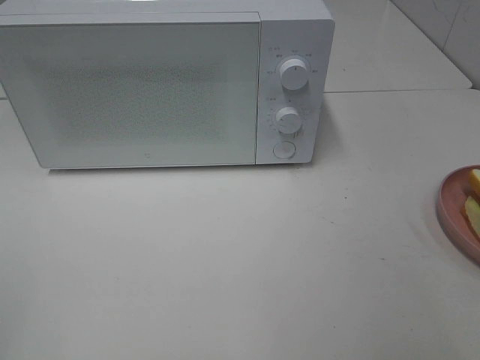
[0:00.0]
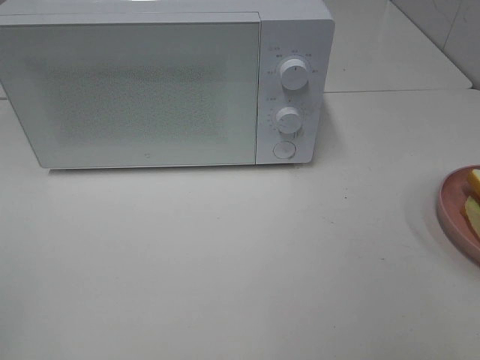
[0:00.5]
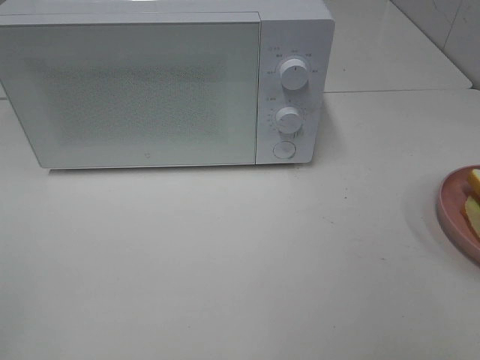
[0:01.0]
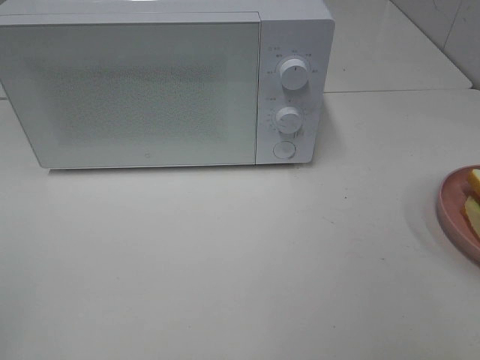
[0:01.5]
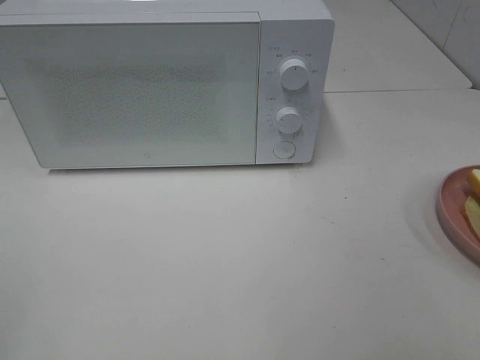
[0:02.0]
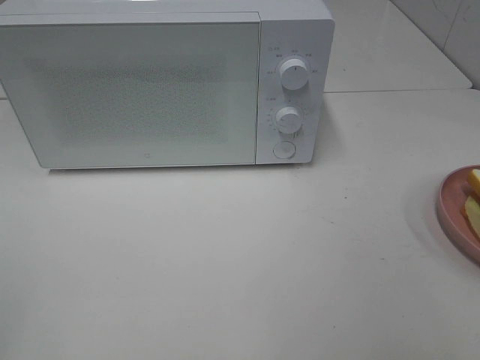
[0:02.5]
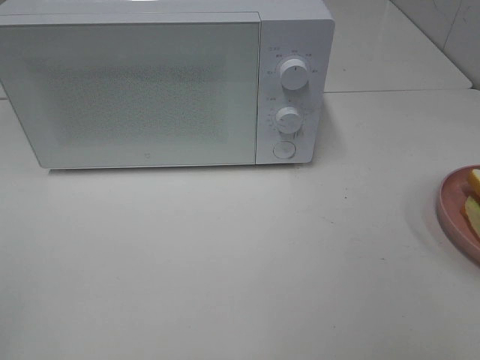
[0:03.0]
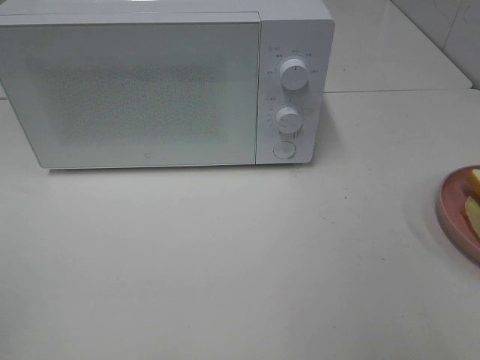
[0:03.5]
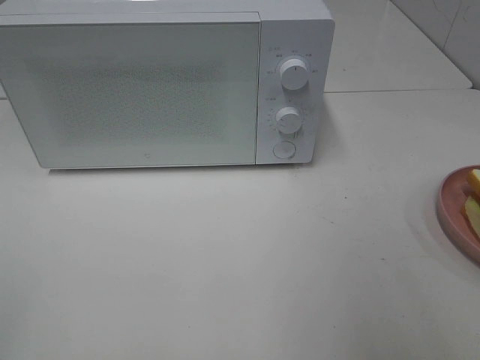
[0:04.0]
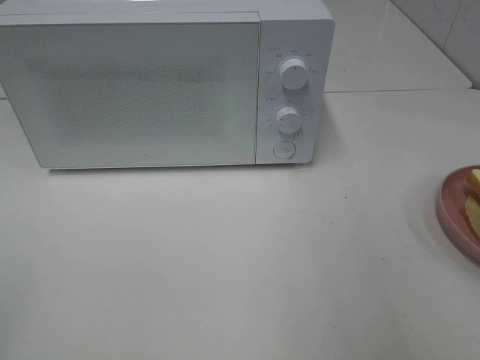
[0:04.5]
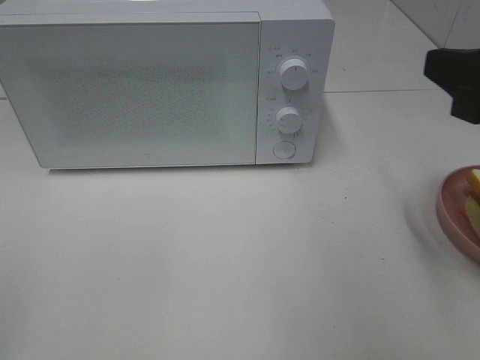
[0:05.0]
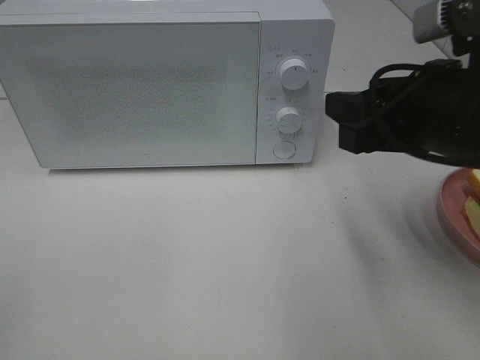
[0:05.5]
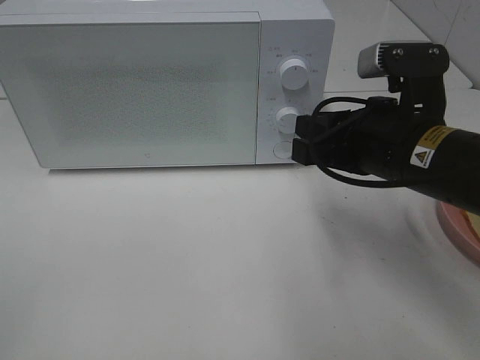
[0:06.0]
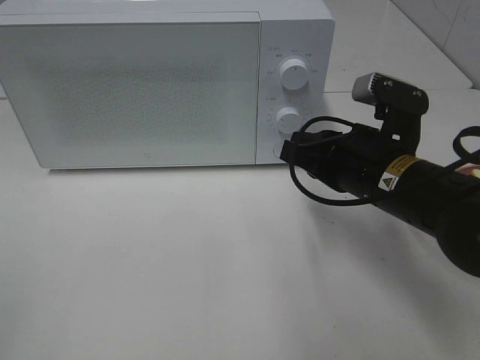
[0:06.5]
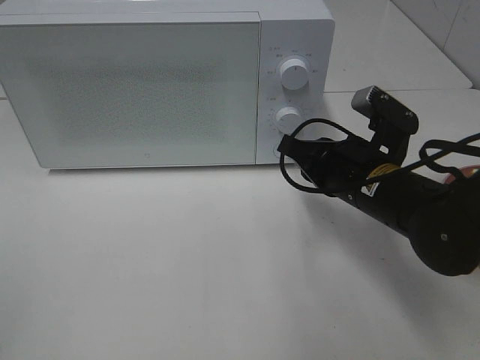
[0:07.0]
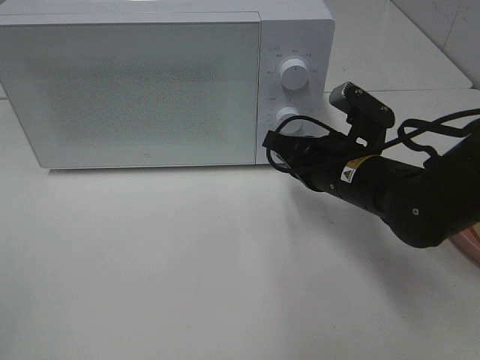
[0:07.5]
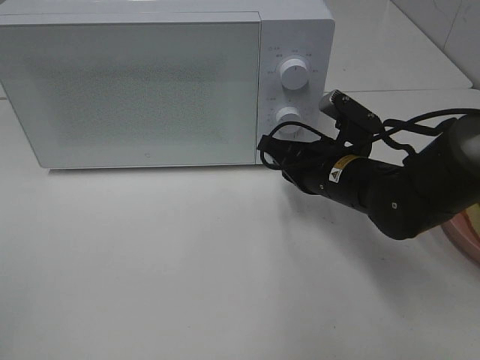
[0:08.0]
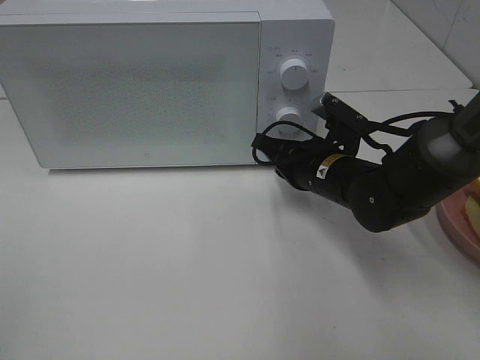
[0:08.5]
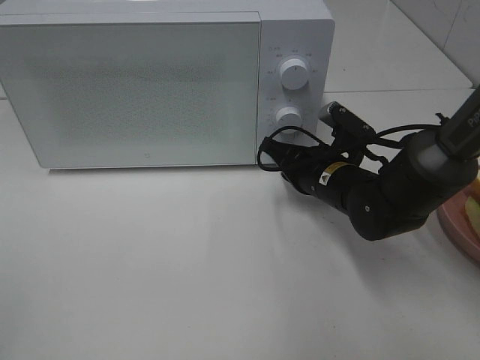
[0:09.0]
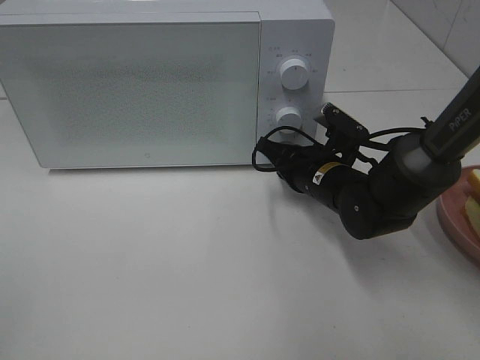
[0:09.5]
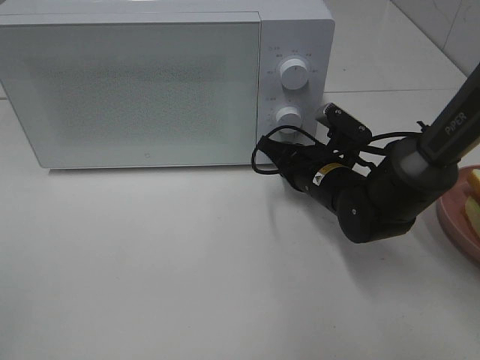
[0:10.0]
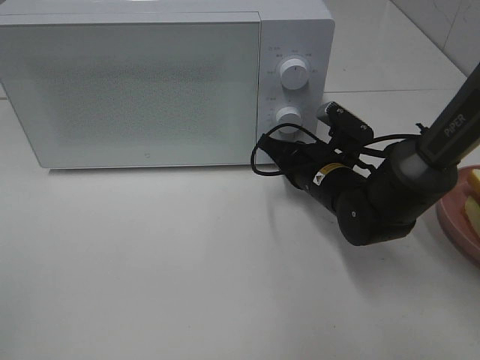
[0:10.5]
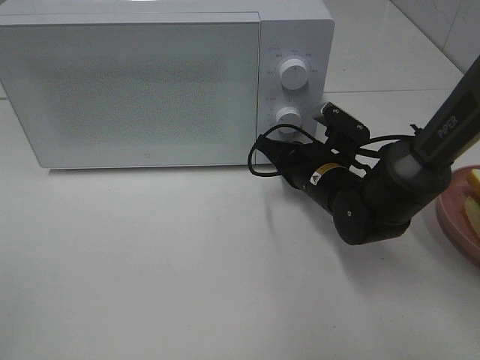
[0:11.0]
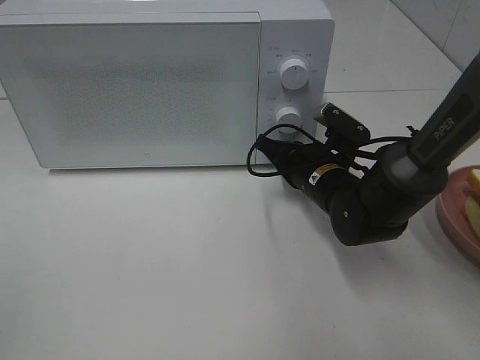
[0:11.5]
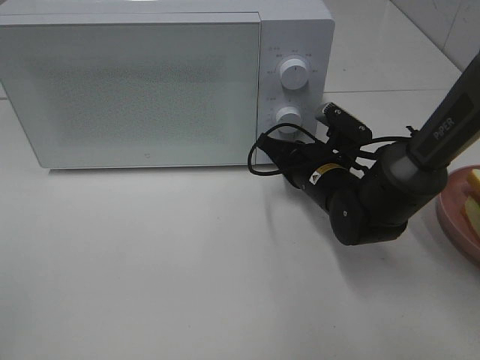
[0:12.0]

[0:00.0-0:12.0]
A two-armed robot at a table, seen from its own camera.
Task of the whole recording: Heat Sandwich.
0.0 to 2.0 s: Both grippers stay about where they are.
4.0 to 6.0 s: The right gripper travels forward, to the left and downward by some 25 cm, and closes its fingers.
6.0 to 8.0 s: The right gripper is displaced downward and forward by about 10 cm, and closes its fingers.
8.0 to 10.0 s: The right gripper shifts by roughly 5 cm.
10.0 to 12.0 s: Both grippers stay about where they are.

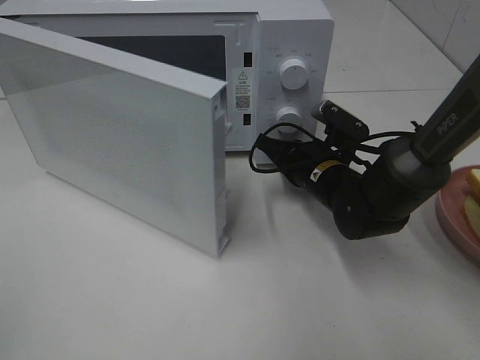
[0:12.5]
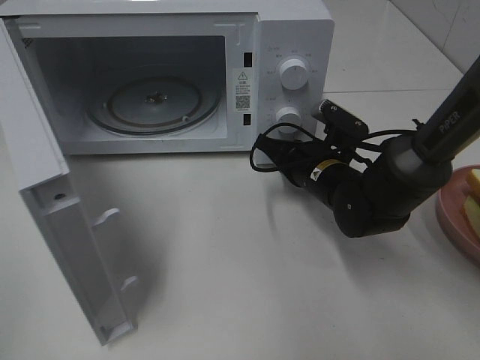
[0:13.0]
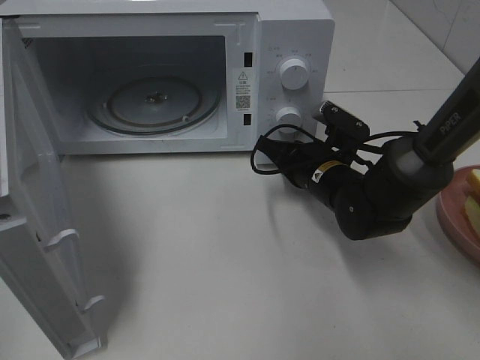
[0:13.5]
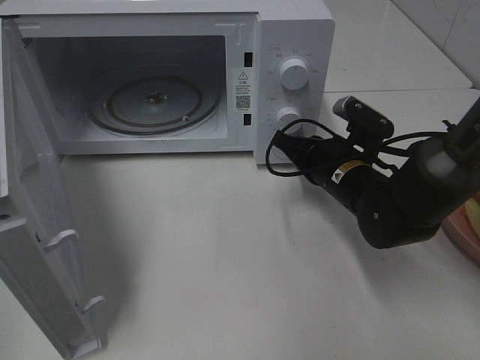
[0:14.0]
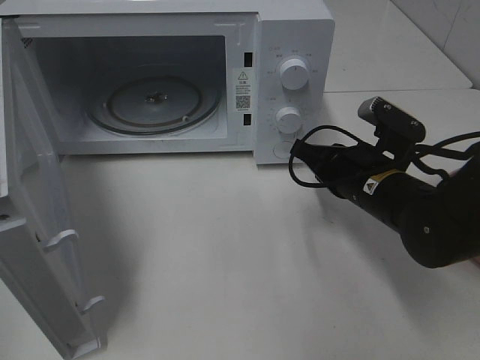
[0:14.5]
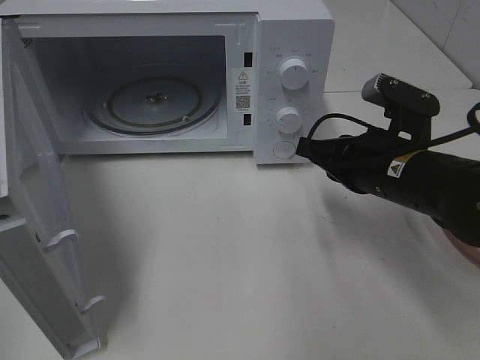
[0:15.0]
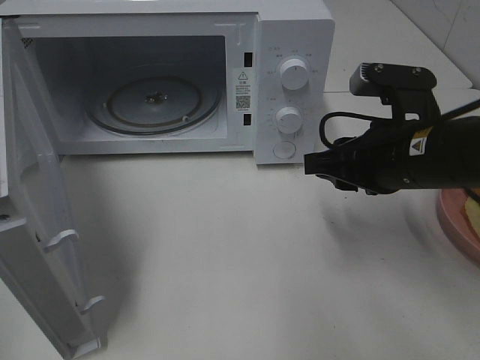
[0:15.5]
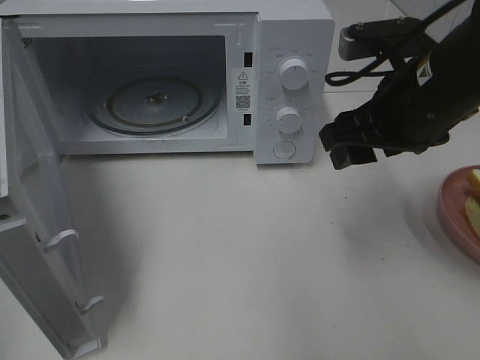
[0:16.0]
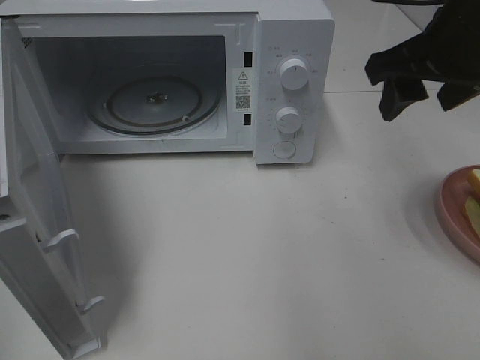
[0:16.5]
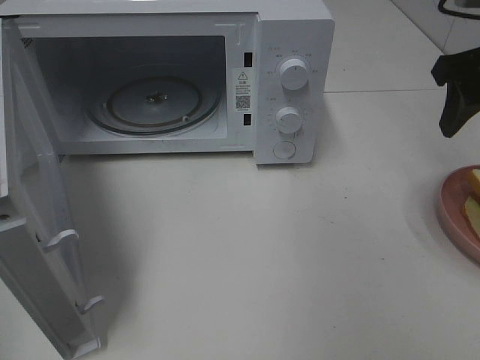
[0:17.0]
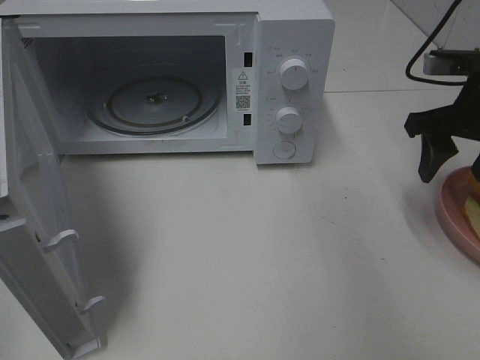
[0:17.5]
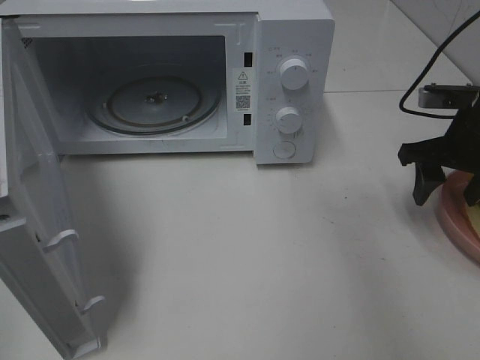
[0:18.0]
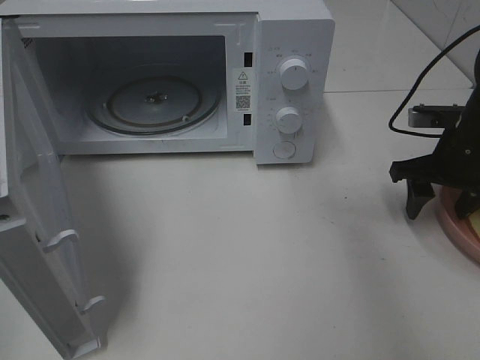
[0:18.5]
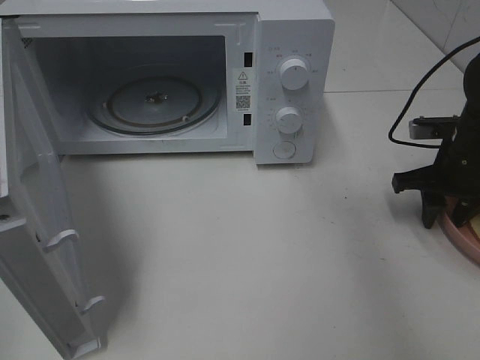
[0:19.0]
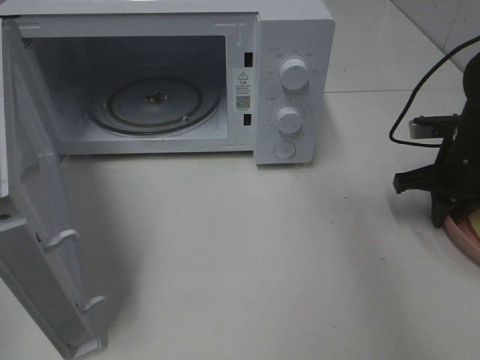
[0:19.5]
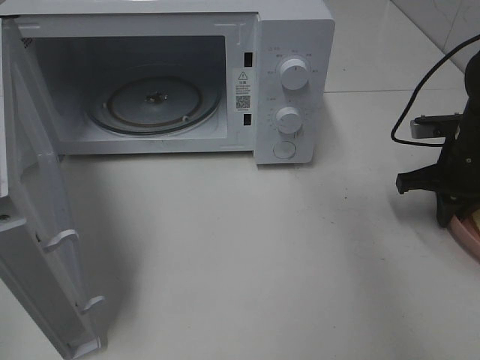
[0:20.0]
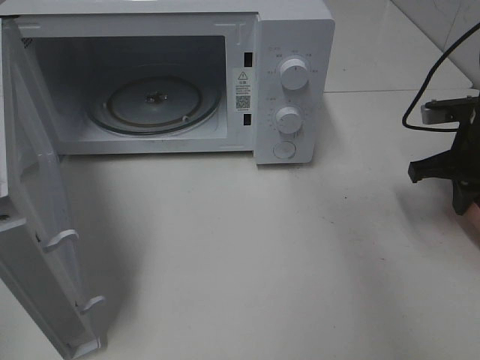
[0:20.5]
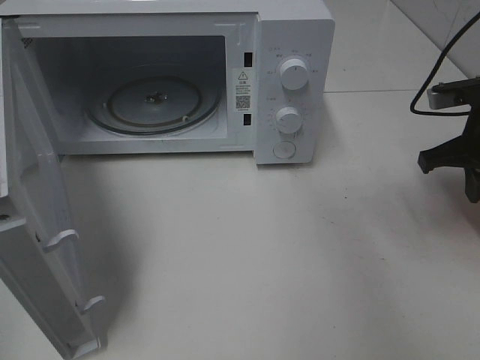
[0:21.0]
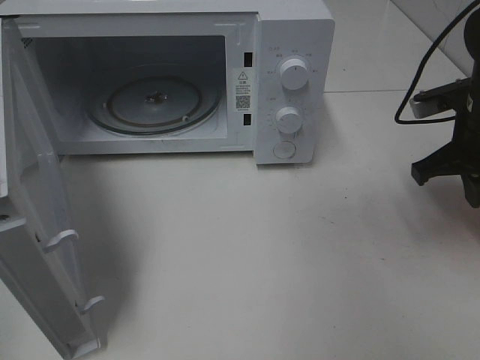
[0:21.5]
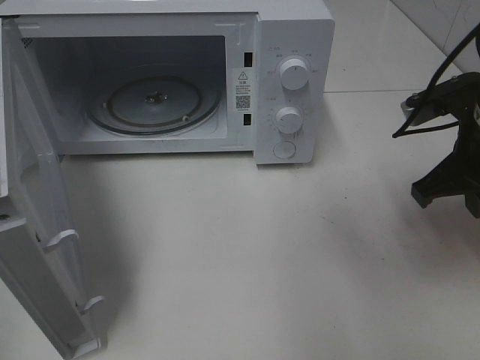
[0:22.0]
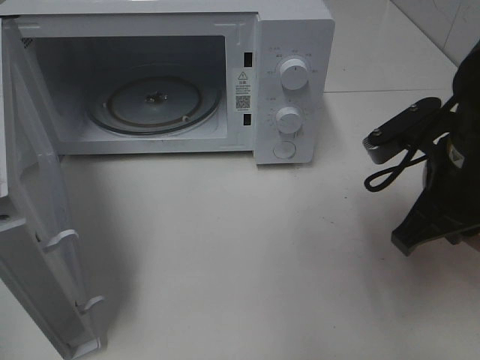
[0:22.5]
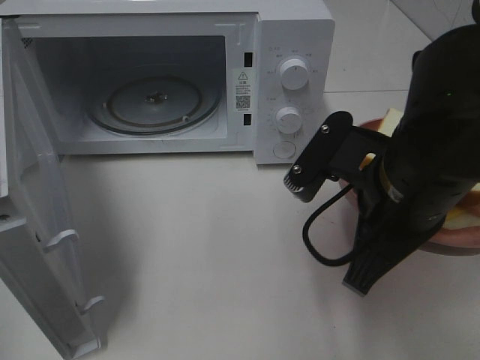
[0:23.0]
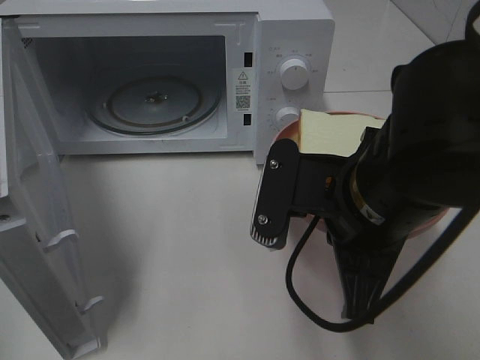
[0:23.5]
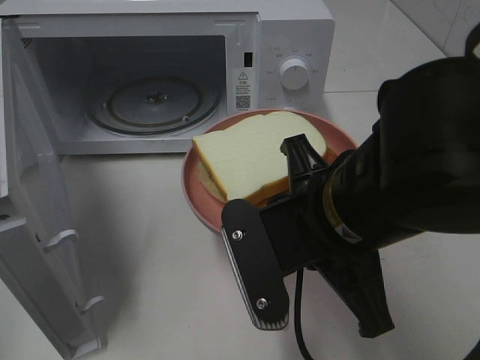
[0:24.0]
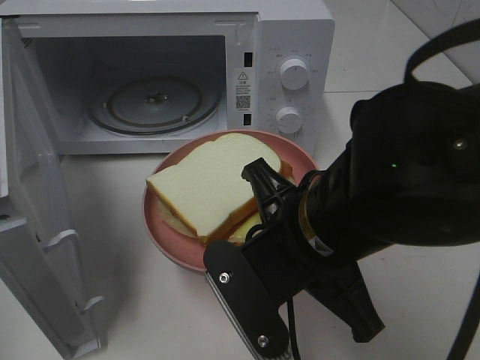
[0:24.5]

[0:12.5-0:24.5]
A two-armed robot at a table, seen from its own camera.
Task of the whole recording: Heat Sandwich.
Step, 12.5 to 14.5 s: Right hand: press the switch.
Step, 15.0 to 20.0 s: Right hand: grab the plate with the sandwich.
12.5 to 14.5 s: The right gripper heads backward, covering approximately 5 cm.
14.5 to 16.5 s: The right gripper travels upward by roughly 20 cm, and opens its fingers.
16.5 to 18.5 s: The right gripper shifts roughly 20 cm downward and to the right.
18.5 to 20.5 s: The right gripper closes up.
20.5 to 22.5 s: The right gripper heads backward, to the left and upward, covering about 15 cm.
22.5 to 24.5 s: The right gripper is displaced to the left and backward by some 15 cm.

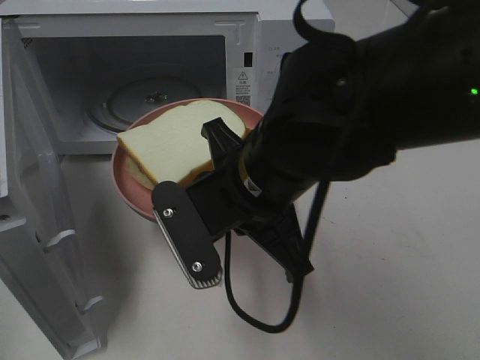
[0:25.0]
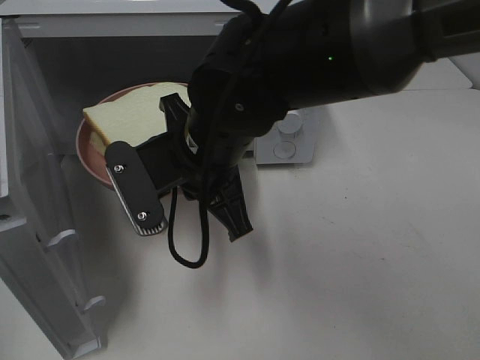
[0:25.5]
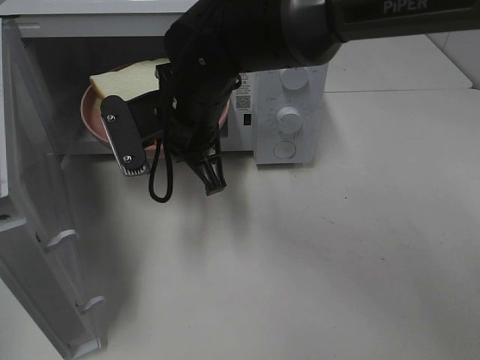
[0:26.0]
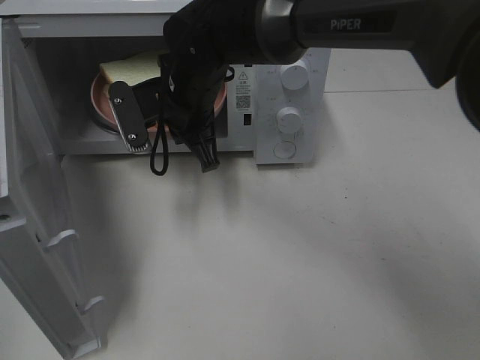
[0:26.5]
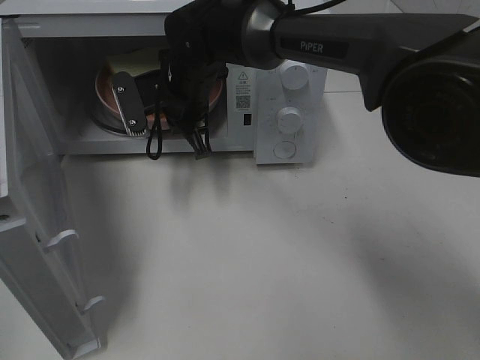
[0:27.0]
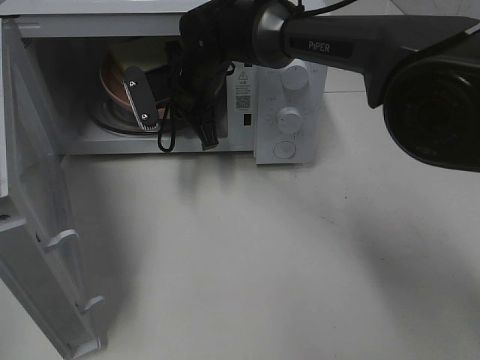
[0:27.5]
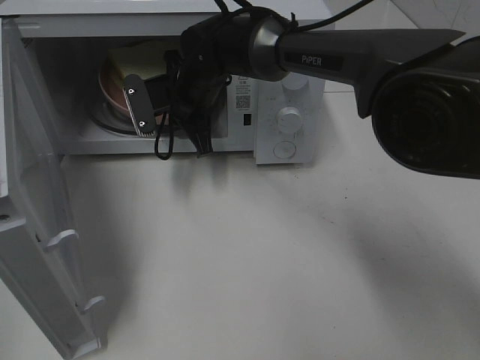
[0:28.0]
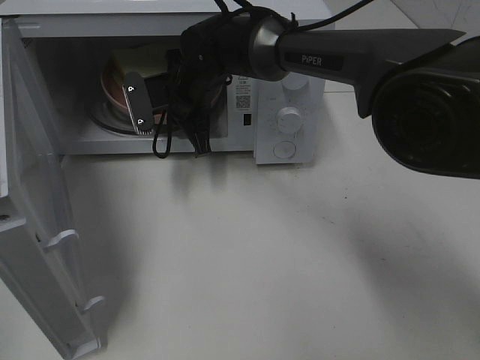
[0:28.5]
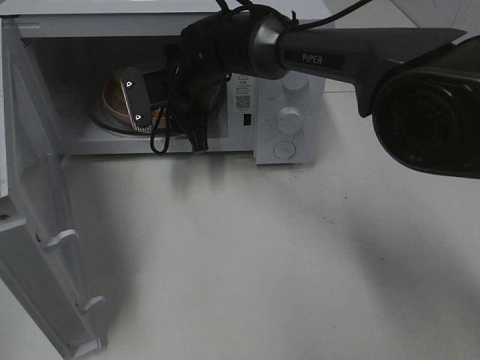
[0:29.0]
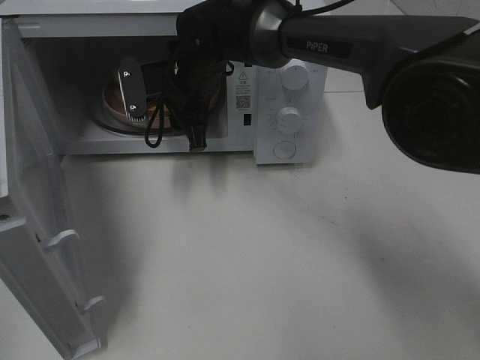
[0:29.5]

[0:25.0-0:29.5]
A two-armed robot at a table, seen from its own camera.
Task of the whole recording: Heat Sandwich.
25.0 to 27.0 s: The right gripper goes roughly 20 cm forward.
27.0 to 29.5 s: The right gripper opens up.
